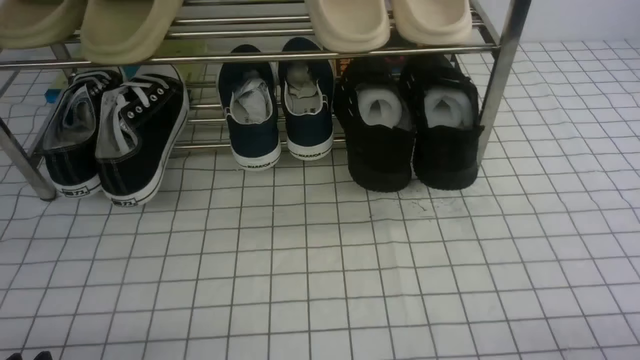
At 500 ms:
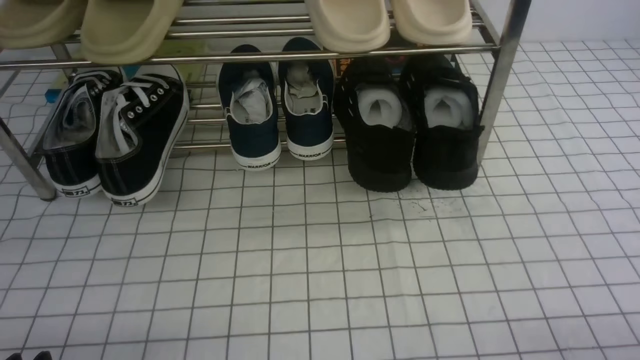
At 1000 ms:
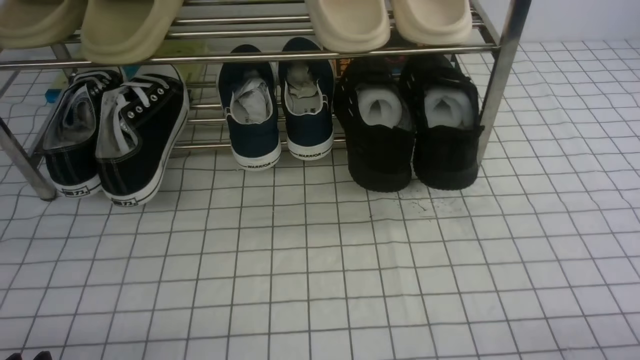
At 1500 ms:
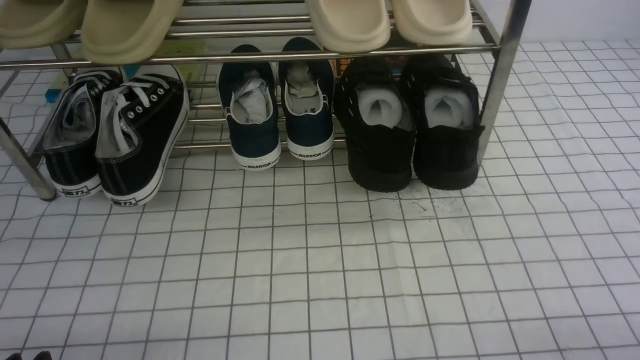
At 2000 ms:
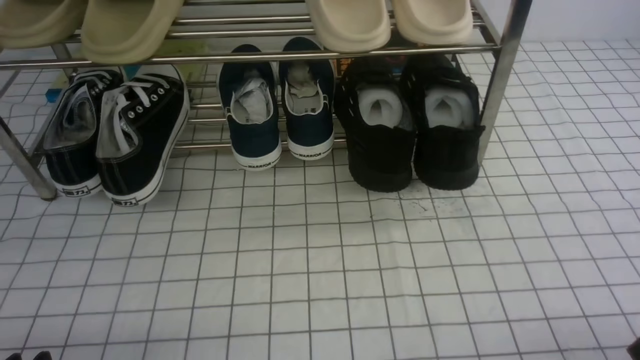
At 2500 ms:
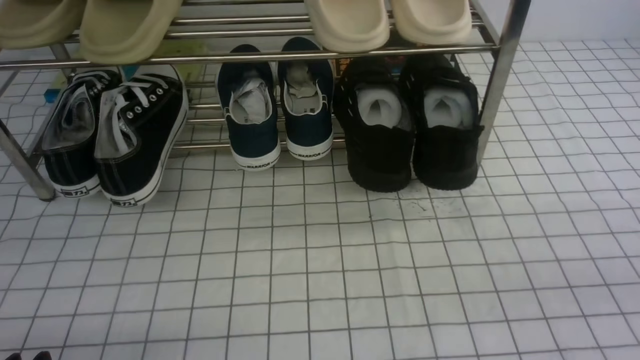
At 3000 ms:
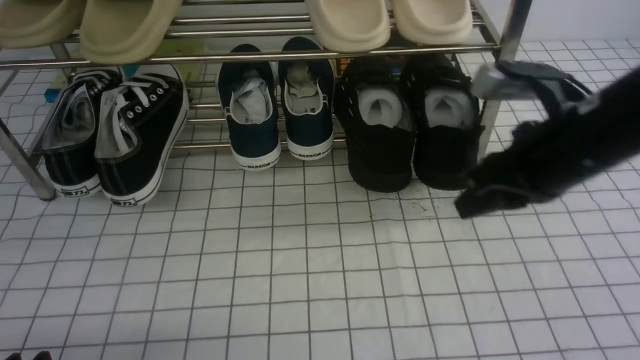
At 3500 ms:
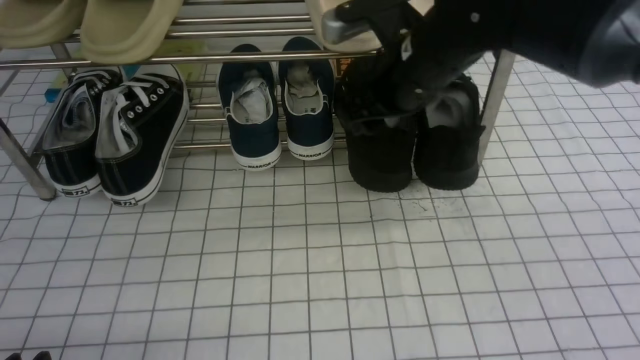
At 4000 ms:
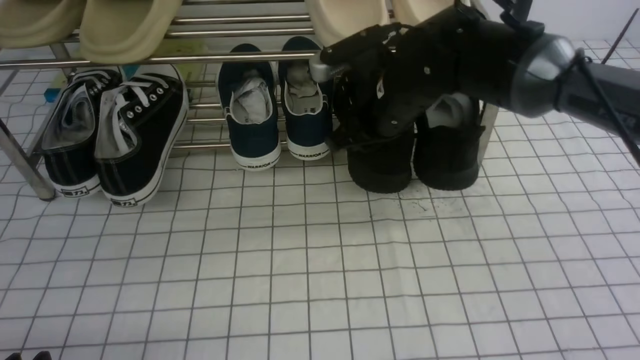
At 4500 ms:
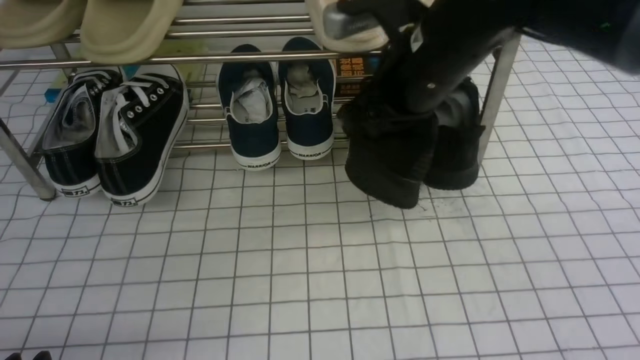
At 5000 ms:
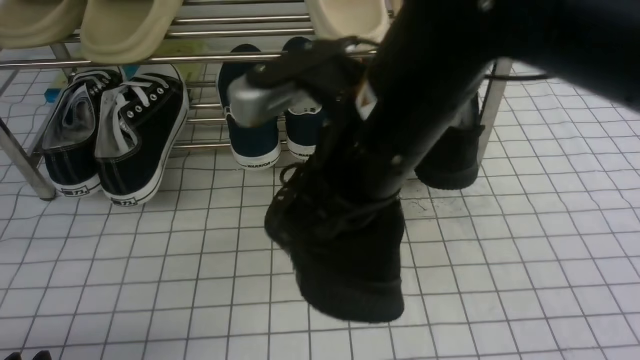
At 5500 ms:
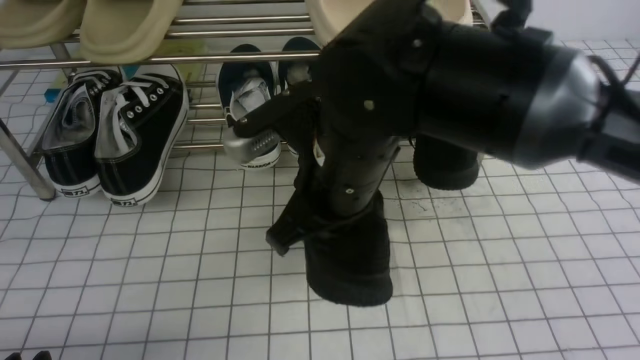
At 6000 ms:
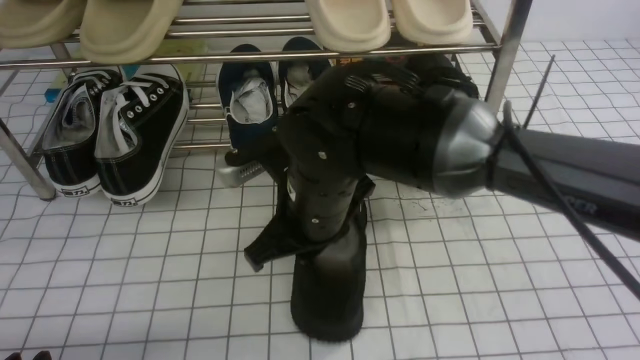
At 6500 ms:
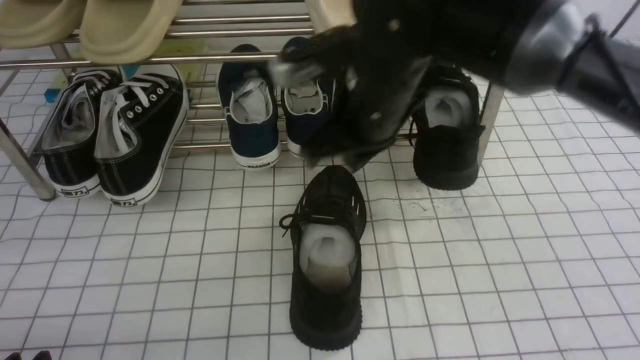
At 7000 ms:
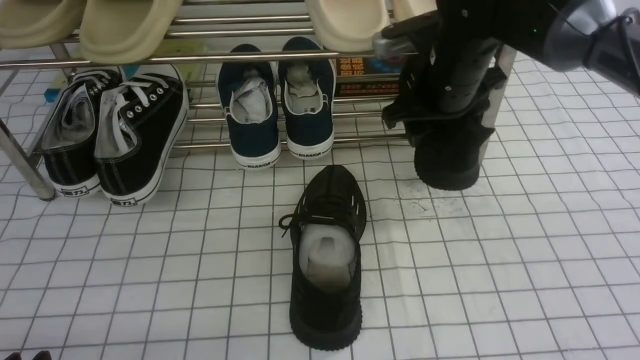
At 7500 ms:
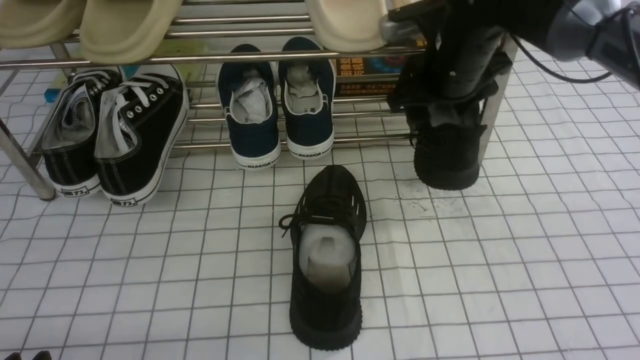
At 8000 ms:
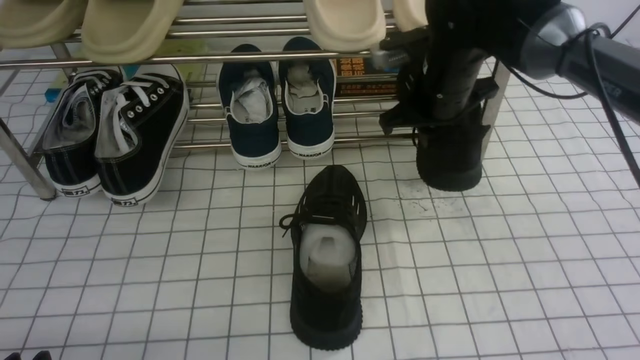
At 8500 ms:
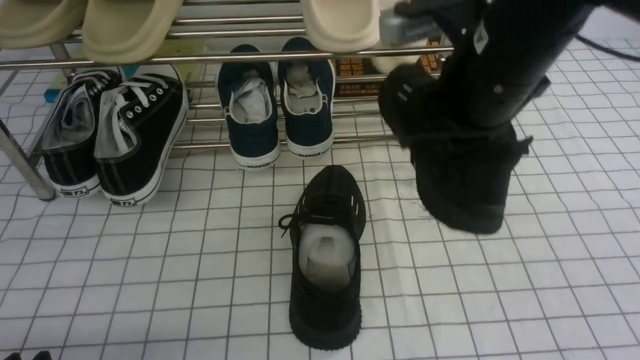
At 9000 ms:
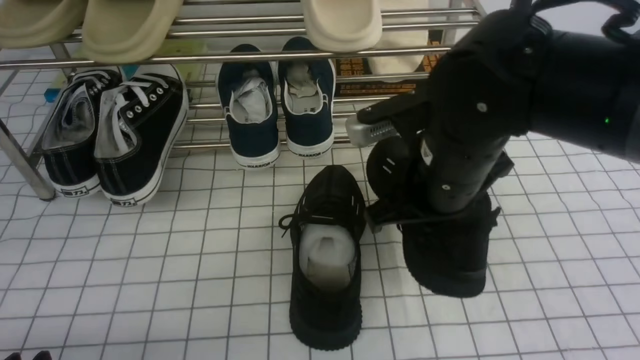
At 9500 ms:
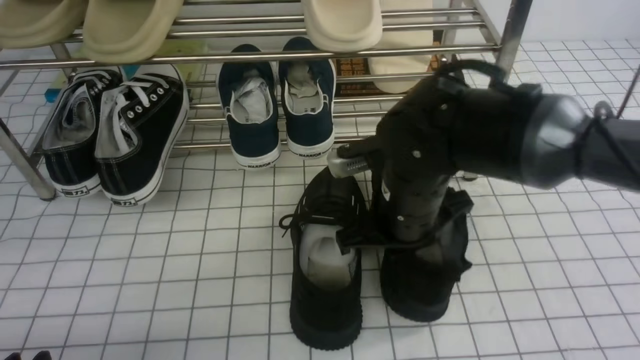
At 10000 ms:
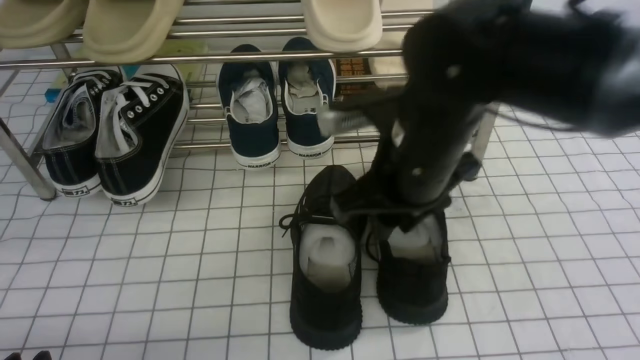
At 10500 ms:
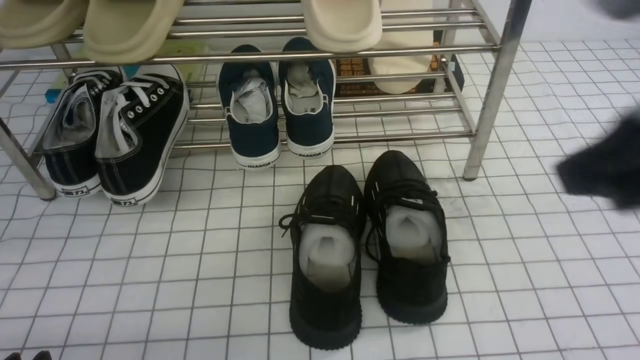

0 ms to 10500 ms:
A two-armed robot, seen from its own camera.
Step, 0 ms to 4000 ms: use the right arm to clamp a shoe on the right side of the shoe rack.
Step, 4500 ms to 6000 ms: use the right arm to take out the clamped shoe from the shoe rack and put it down.
Step, 6500 ms to 7500 ms: use the right arm to clamp a shoe on the right side of the shoe rack.
Step, 8000 ms to 10000 ms: use the right arm to take out the clamped shoe from the shoe rack and put it down.
2000 ms to 4000 ms: The right gripper heads forward and to the left, covering roughly 40 cm, and opens, then closes once more.
4000 ms to 6500 ms: The right gripper goes backward and returns, approximately 15 cm each way.
6500 ms to 8500 ms: The right gripper shifts about 5 cm to the right, moves about 10 cm forward and comes back, and opens and closes again.
8500 ms to 10500 ms: The right gripper heads backward, to the right and upward, covering roughly 20 cm, and opens, then closes once more.

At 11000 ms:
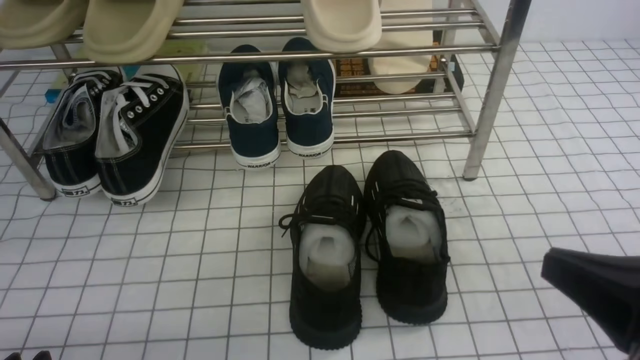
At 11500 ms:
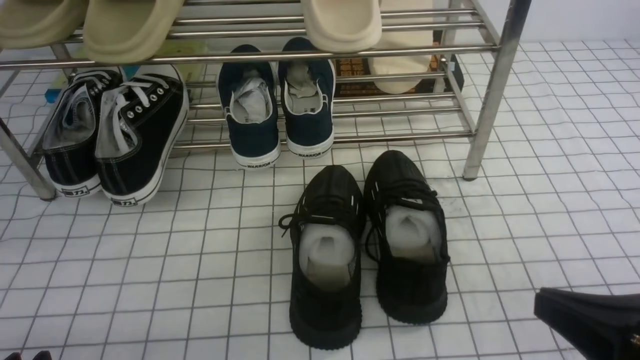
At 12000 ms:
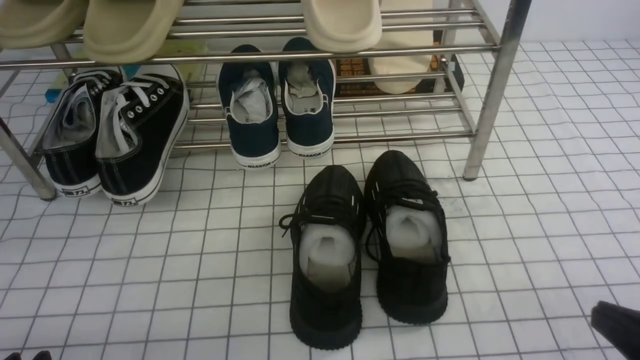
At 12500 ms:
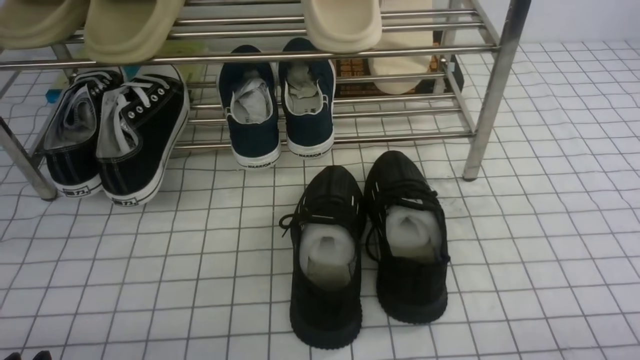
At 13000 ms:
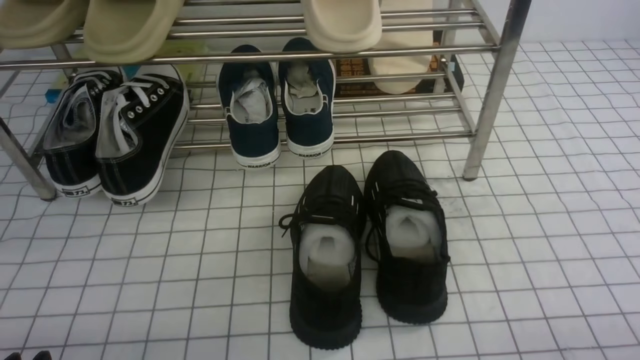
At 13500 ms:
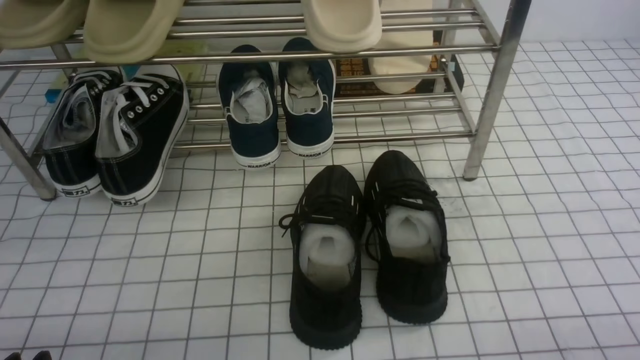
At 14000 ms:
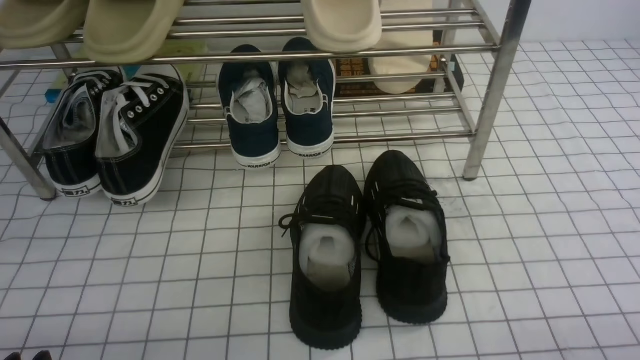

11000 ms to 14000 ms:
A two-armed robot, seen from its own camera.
11000 ms to 12500 ms: The right gripper is displaced downward and to the right by about 15 cm.
12500 ms to 14000 ms: The two grippers keep their place.
